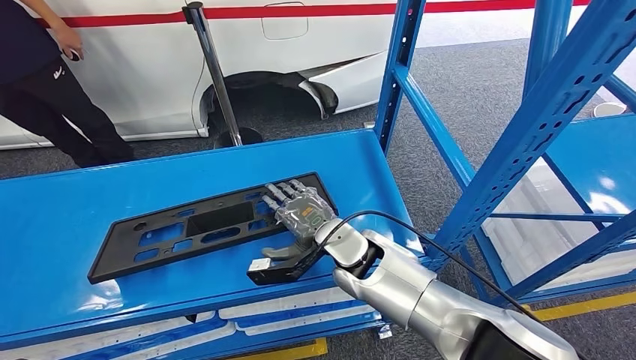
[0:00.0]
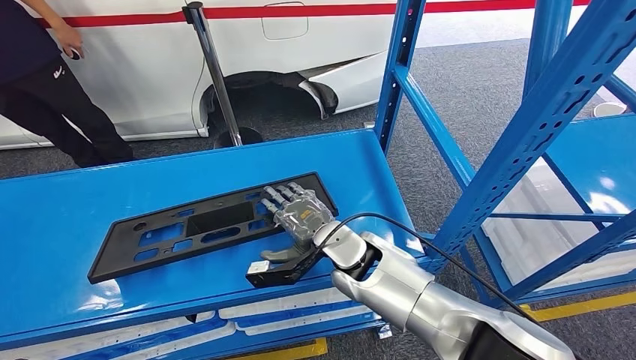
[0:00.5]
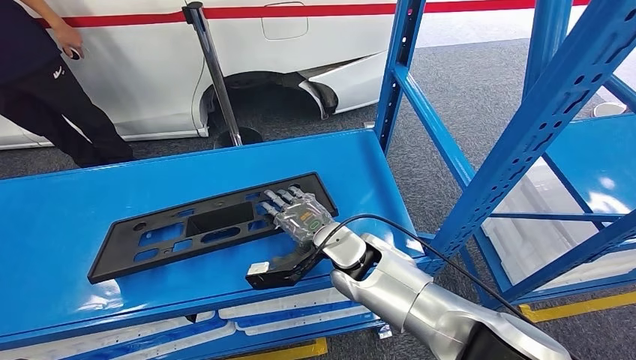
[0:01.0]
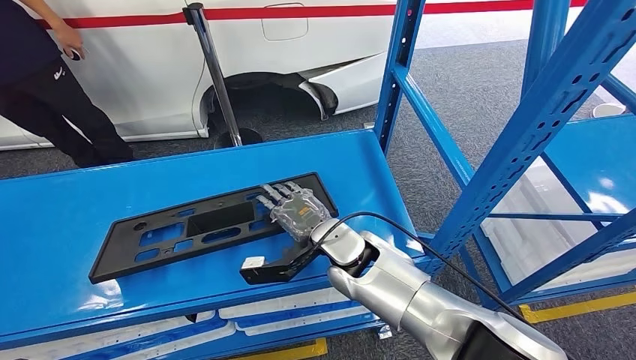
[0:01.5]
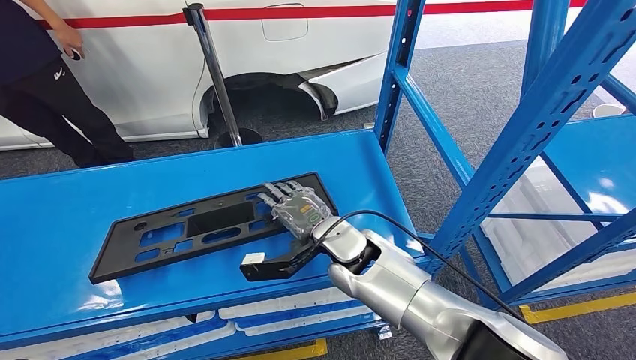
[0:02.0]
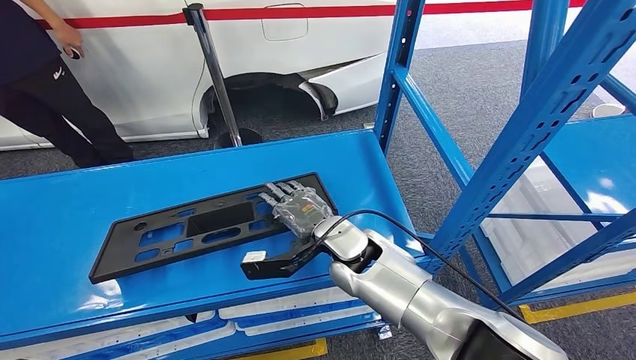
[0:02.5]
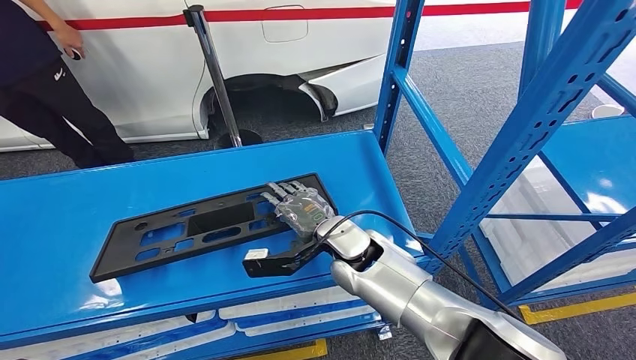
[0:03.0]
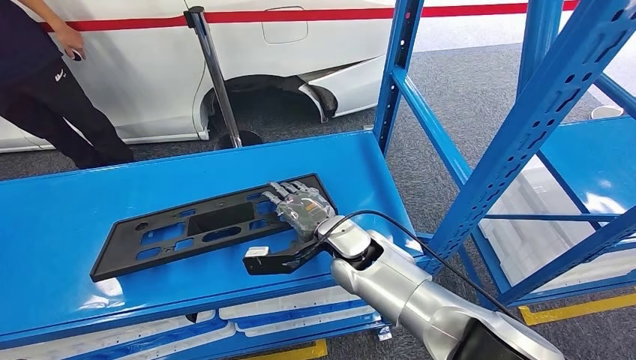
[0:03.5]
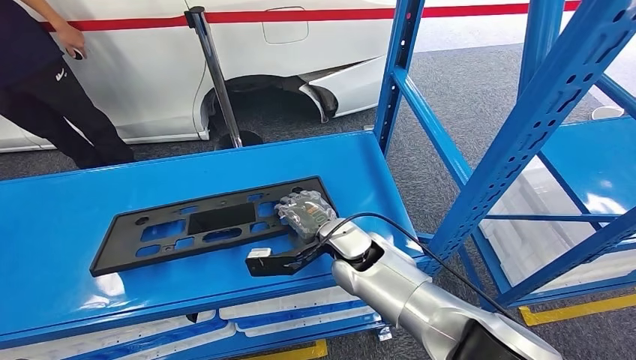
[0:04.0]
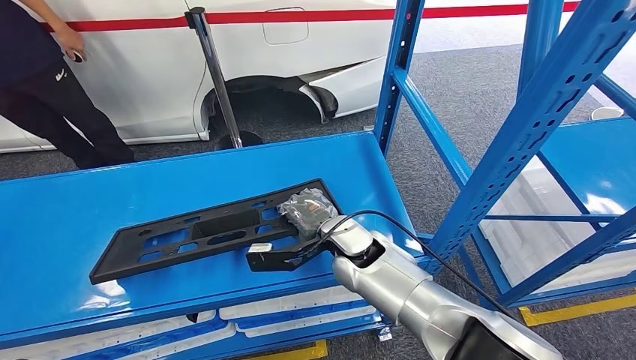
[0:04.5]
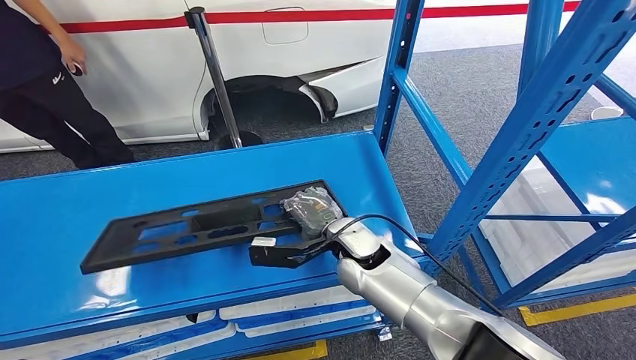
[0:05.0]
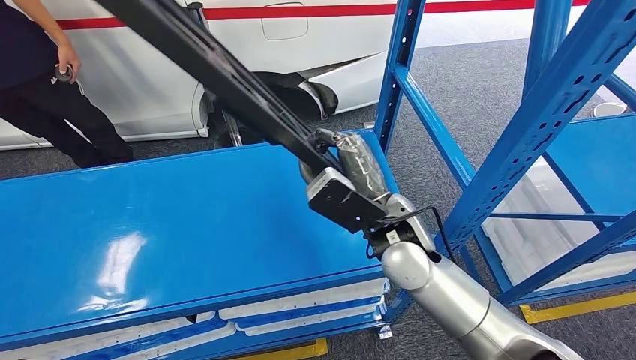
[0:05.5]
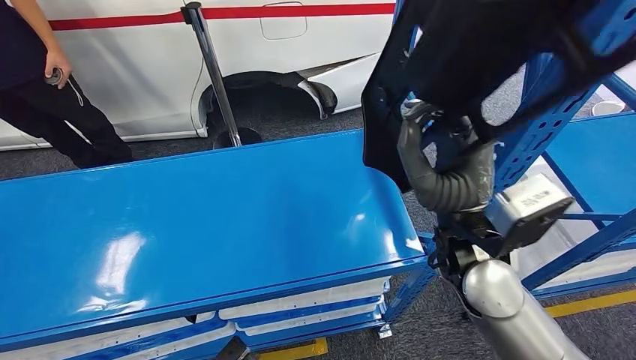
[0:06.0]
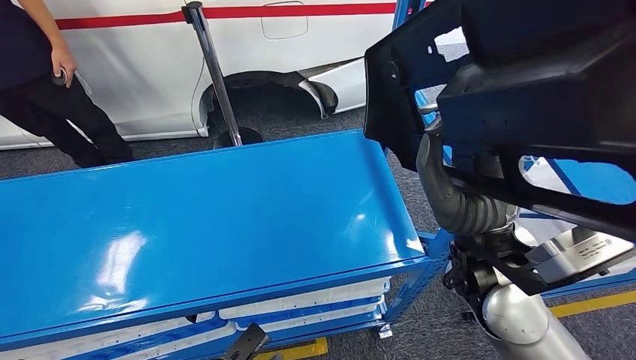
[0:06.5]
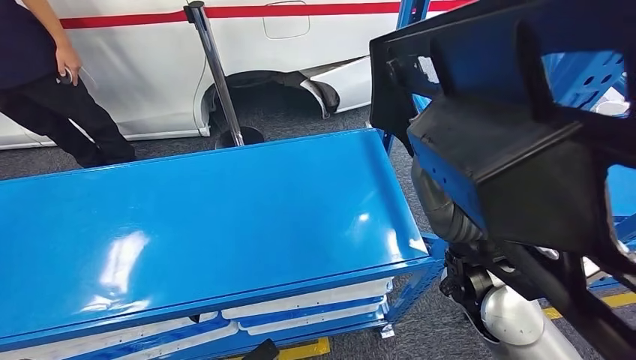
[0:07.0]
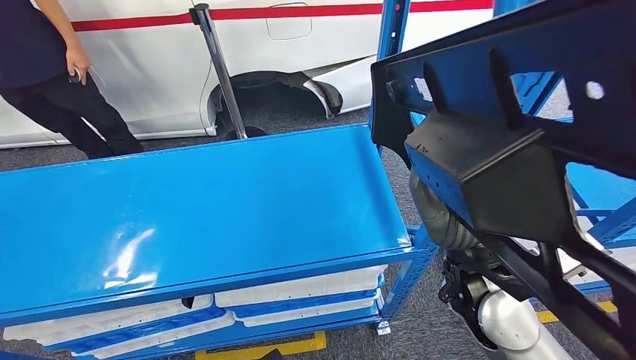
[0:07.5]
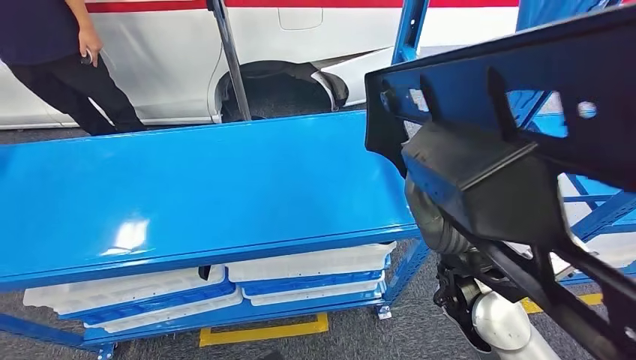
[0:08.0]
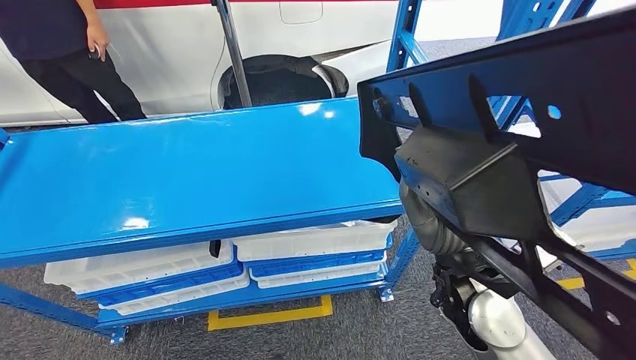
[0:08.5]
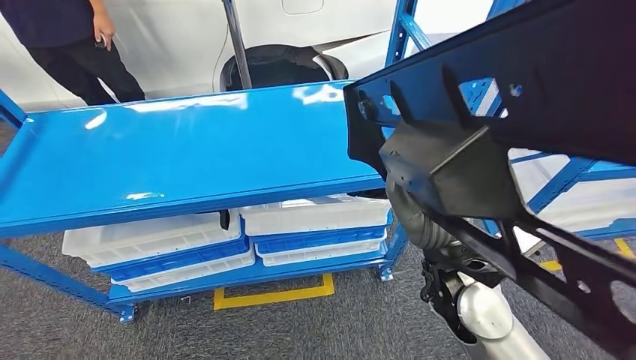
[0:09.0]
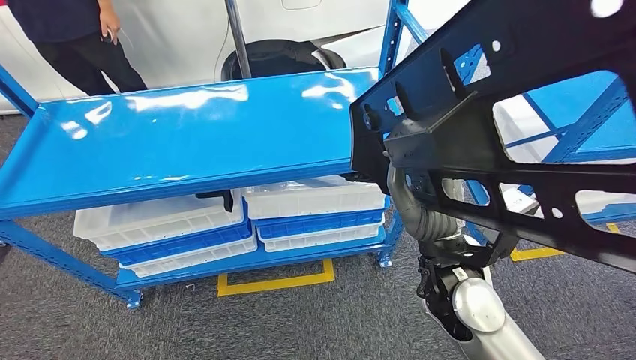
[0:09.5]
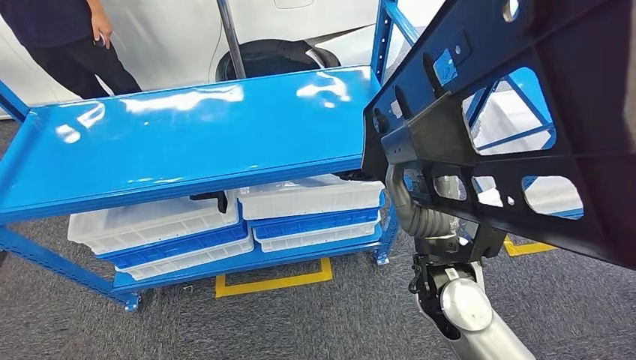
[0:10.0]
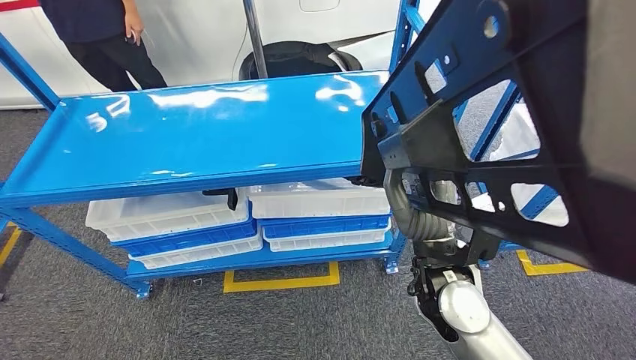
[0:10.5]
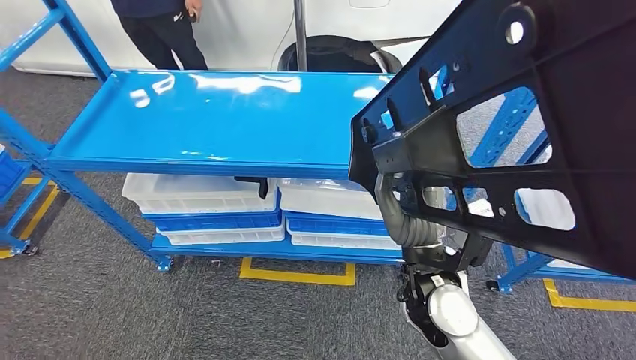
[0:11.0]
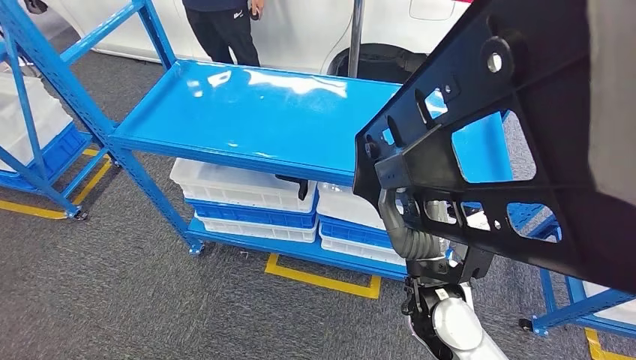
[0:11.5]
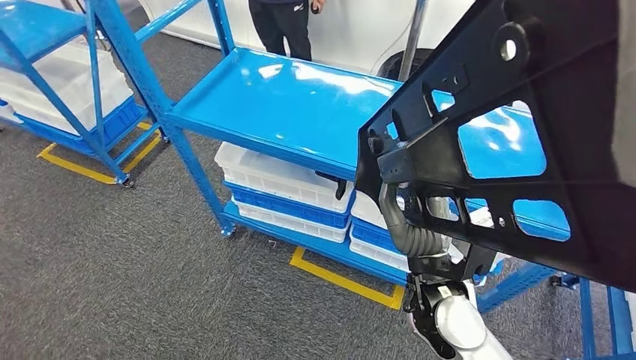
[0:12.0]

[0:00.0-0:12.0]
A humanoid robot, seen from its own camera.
Step, 0:00.0 to 0:06.0: Pick up the large material from the shelf.
0:00.0 to 0:04.0: There are only small adjustments of the hands.

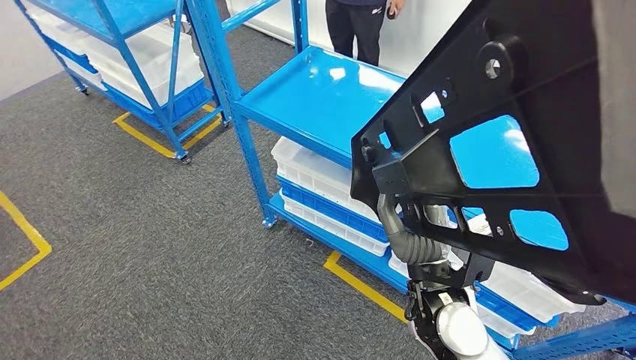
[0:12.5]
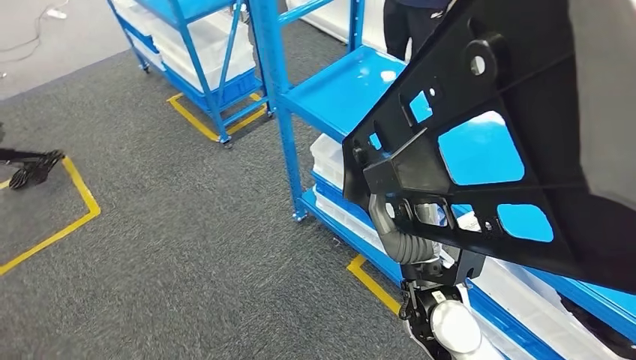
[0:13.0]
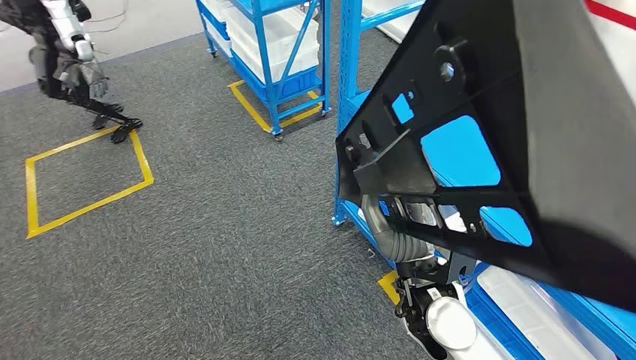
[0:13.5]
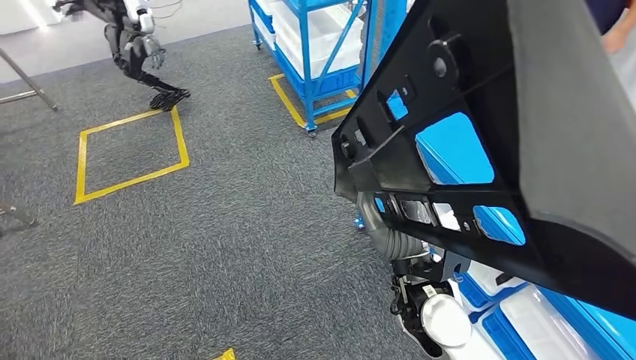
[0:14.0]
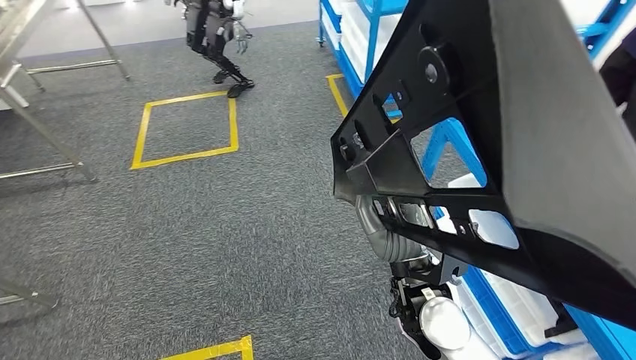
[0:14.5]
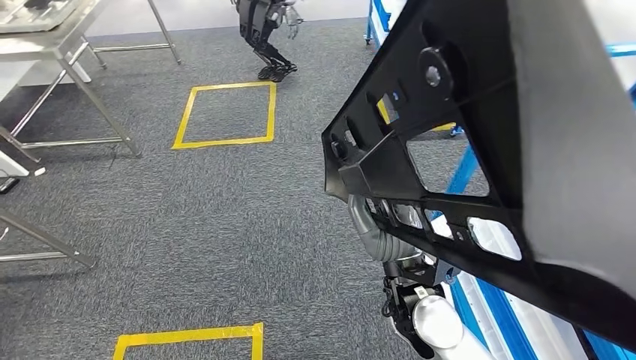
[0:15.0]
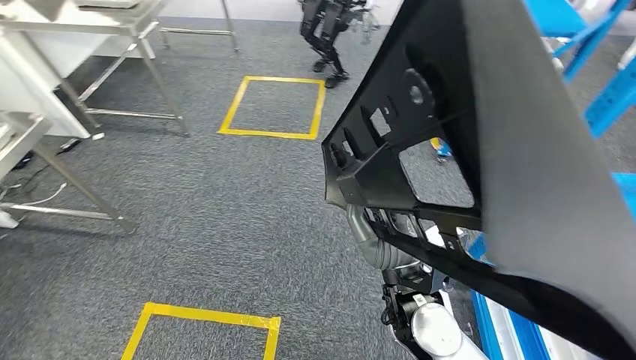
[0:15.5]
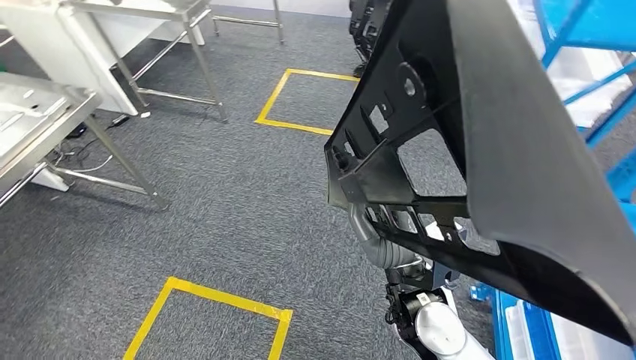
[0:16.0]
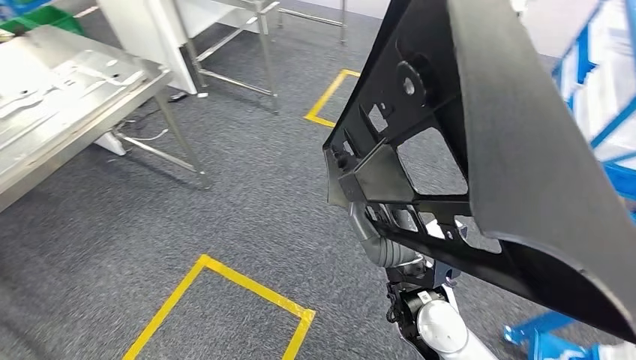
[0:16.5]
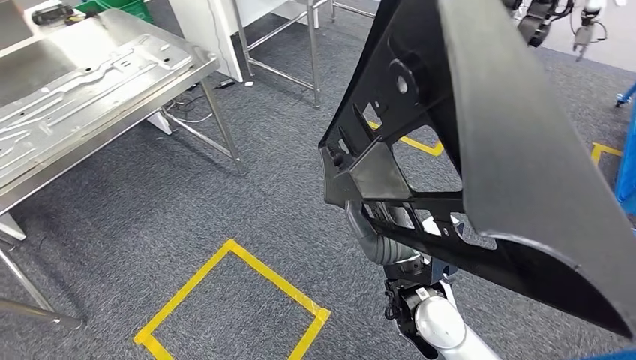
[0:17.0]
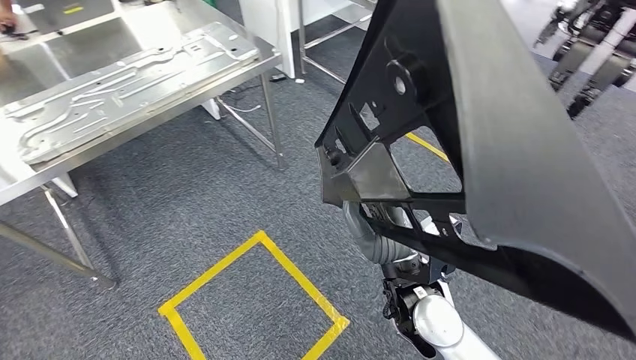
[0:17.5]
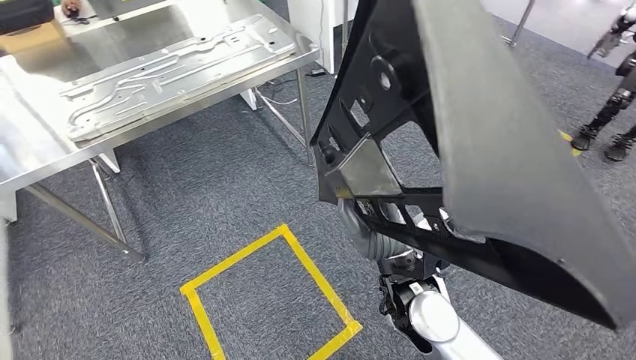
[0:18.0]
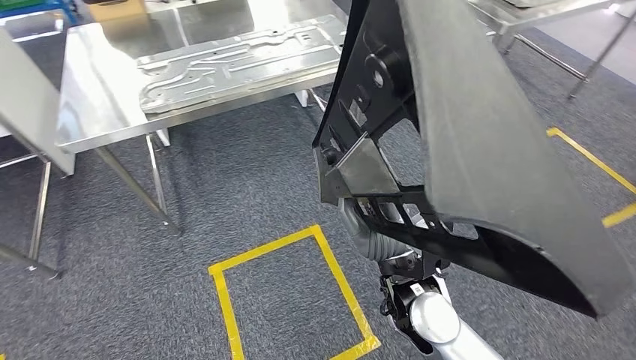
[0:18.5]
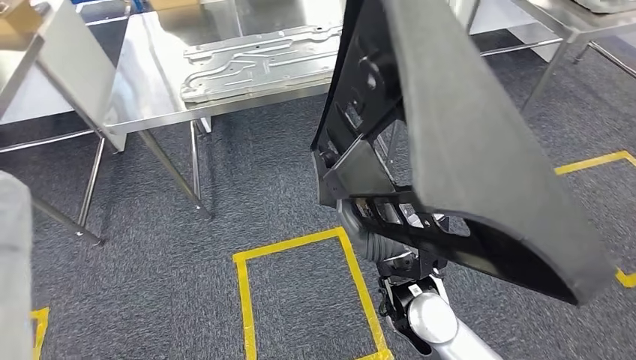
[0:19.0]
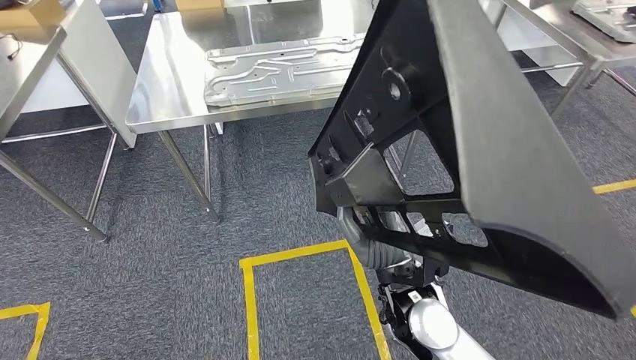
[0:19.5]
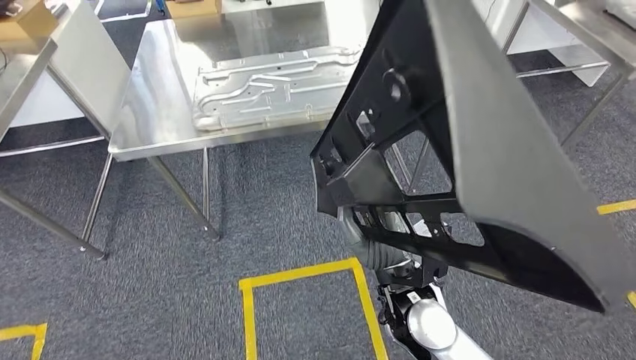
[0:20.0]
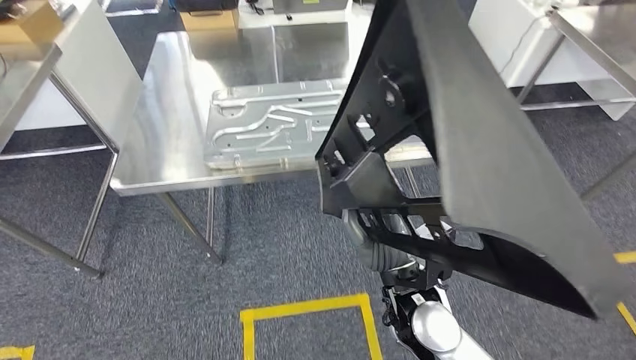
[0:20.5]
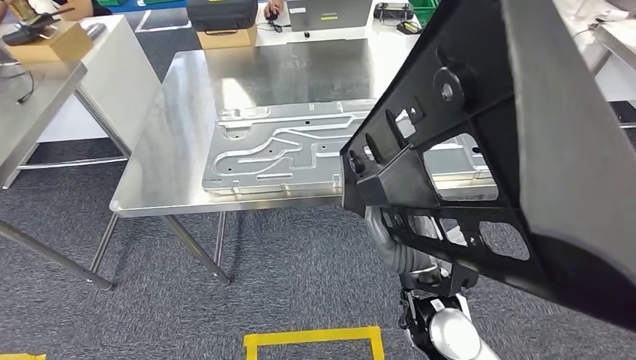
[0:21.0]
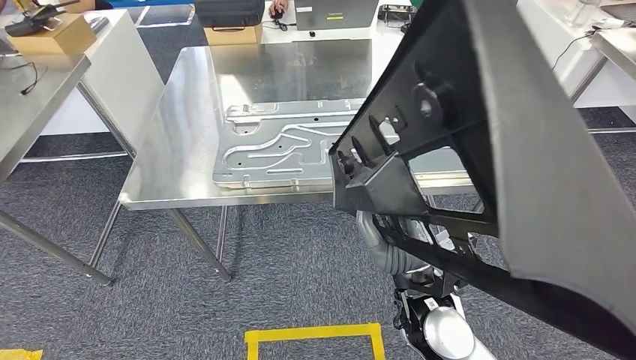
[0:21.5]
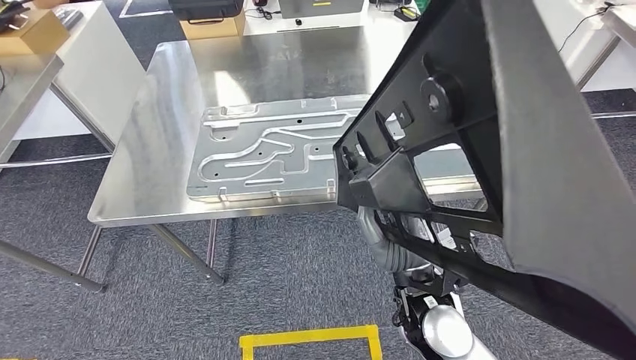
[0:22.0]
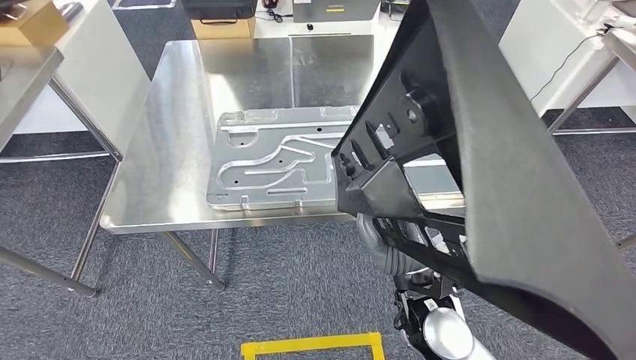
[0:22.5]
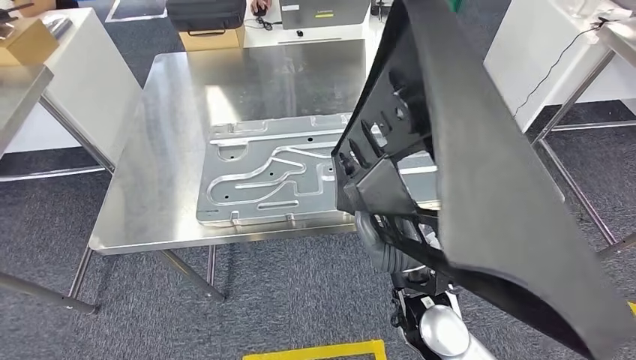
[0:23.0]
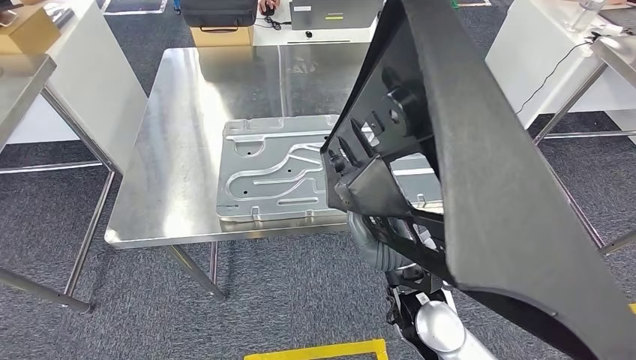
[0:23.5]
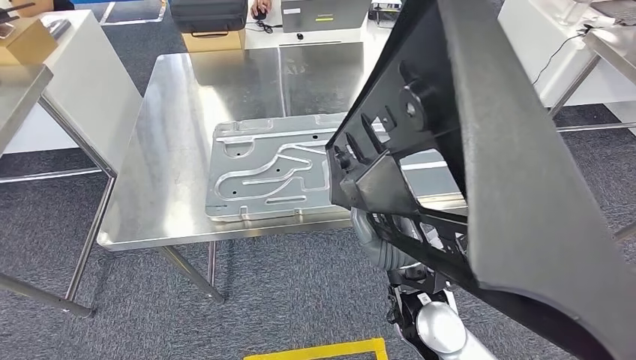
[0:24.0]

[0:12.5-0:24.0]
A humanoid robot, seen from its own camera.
Step, 0:12.5 to 0:22.0: Move the large material to the workbench.
